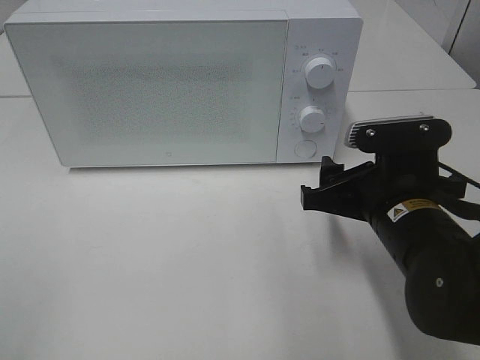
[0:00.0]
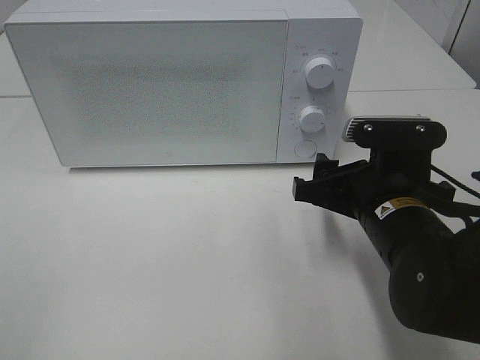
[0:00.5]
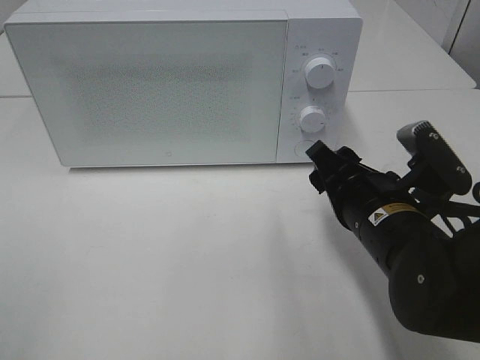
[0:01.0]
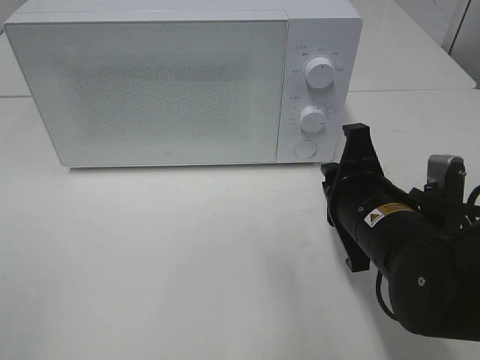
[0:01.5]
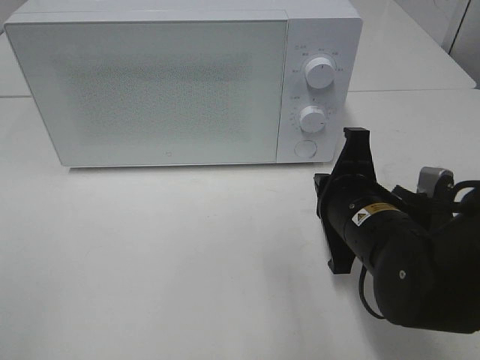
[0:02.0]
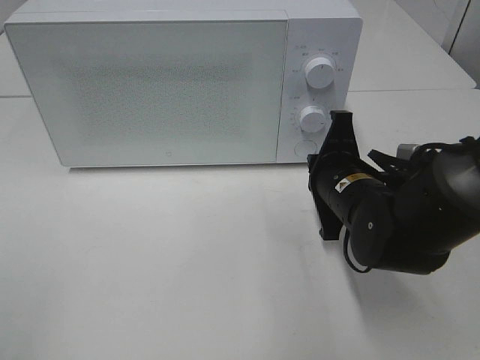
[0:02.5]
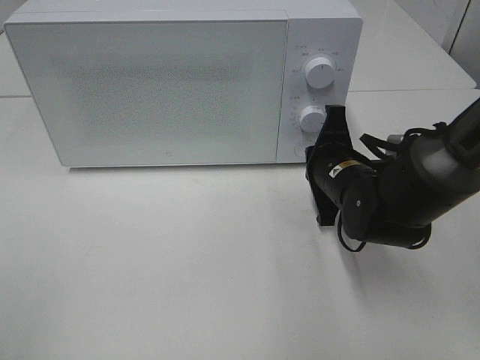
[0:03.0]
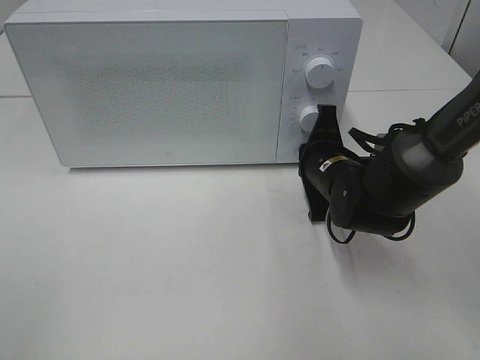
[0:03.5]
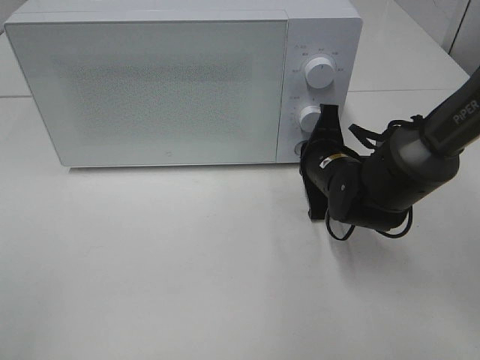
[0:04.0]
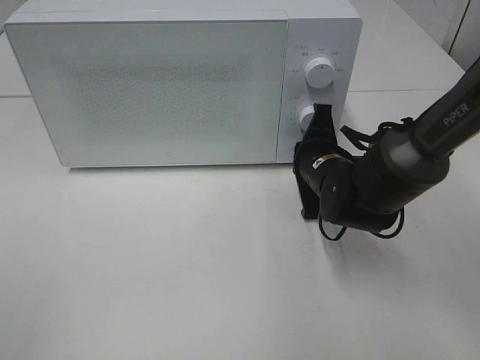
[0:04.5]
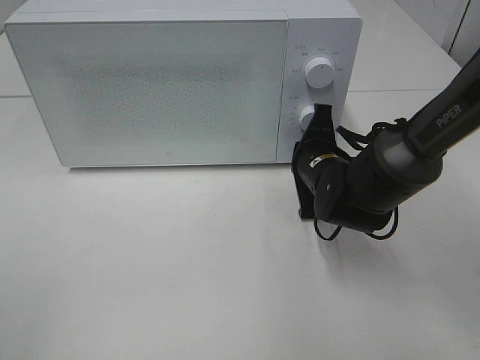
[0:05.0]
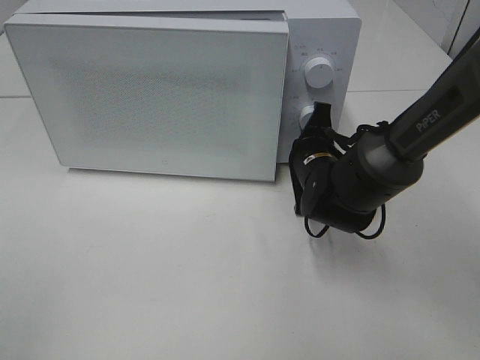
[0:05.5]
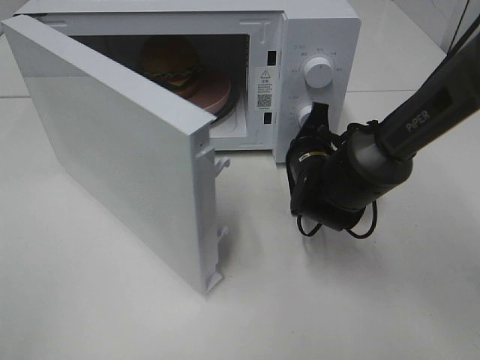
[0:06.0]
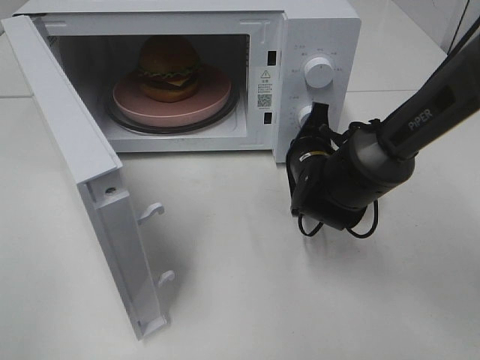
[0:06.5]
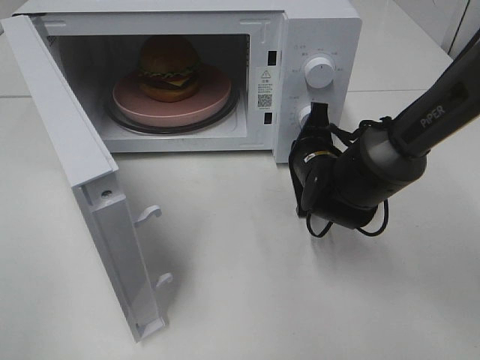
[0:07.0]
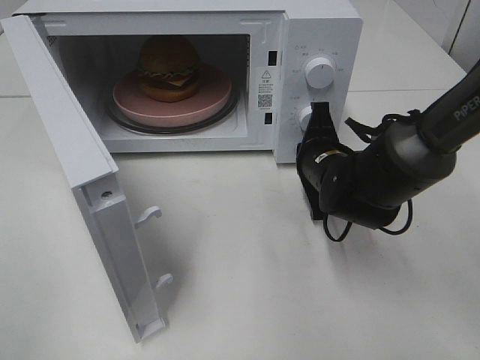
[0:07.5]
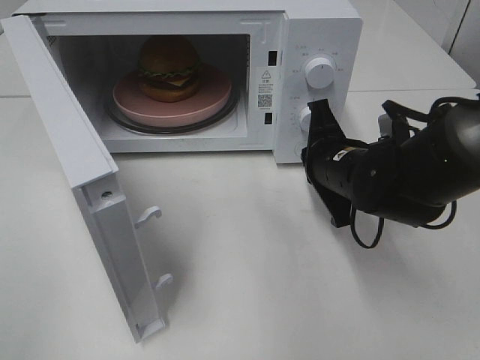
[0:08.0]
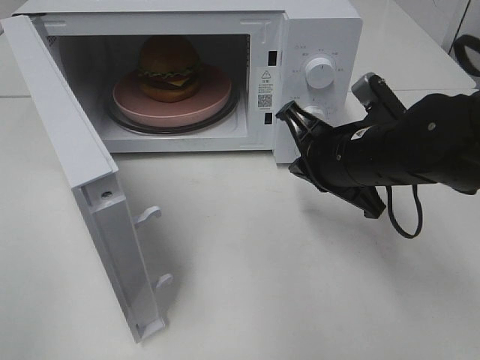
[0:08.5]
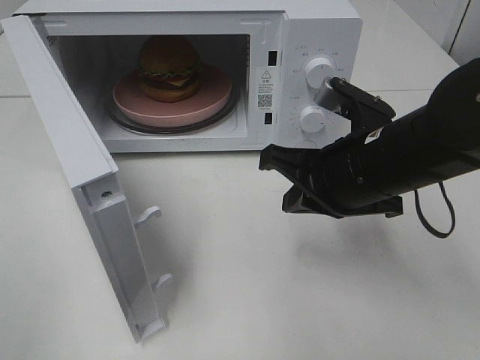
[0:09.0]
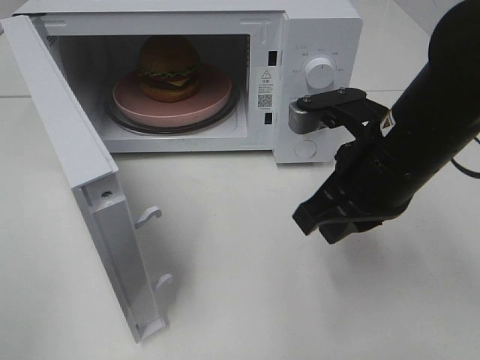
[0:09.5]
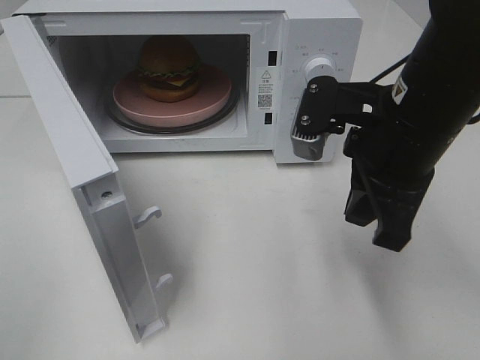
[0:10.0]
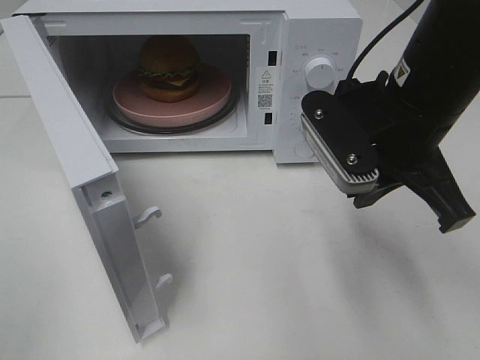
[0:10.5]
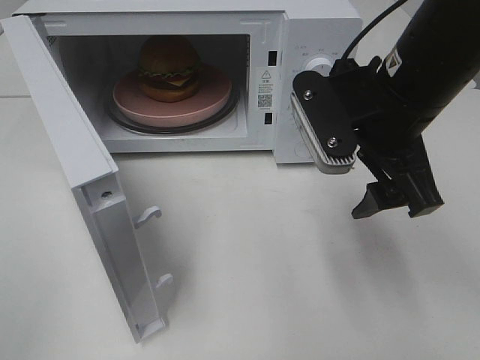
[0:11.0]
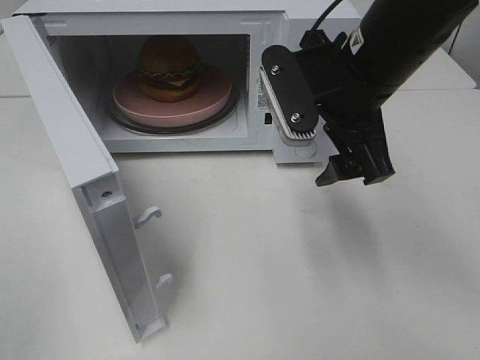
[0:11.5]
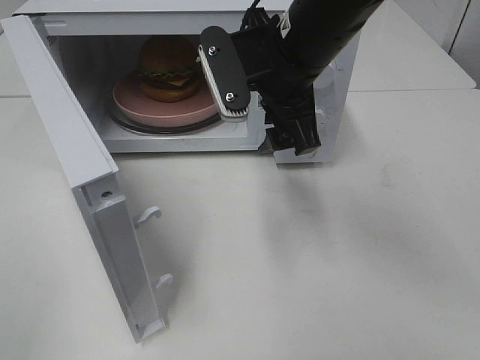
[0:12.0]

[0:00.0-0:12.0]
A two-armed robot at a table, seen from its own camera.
Task of the whole recording: Heat the burger.
Step, 0:00.0 to 0:07.5: Right hand: press the switch.
0:00.0 to 0:02.0: The right gripper closes.
0:02.0 to 0:04.0: The right gripper heads forward, covering roughly 10 cm.
0:06.0 to 0:08.0: The right gripper moves backward, roughly 5 cm.
0:08.0 to 0:10.0: The right gripper goes approximately 15 cm upward and backward.
0:10.0 to 0:12.0: The right gripper heads forward and to the left, covering some 10 cm, and opens.

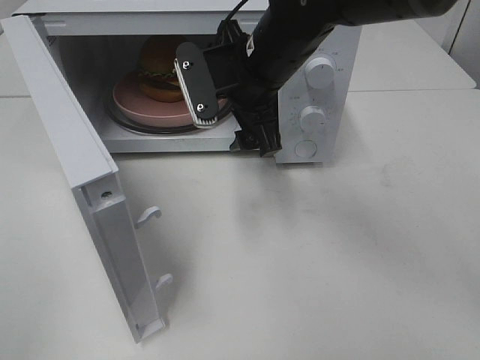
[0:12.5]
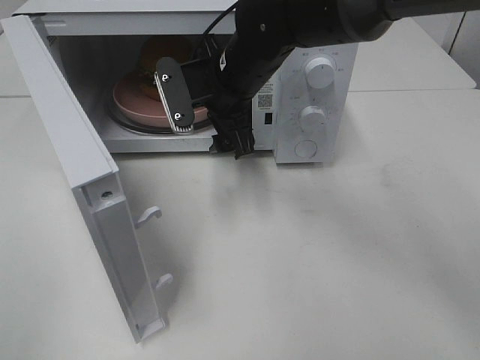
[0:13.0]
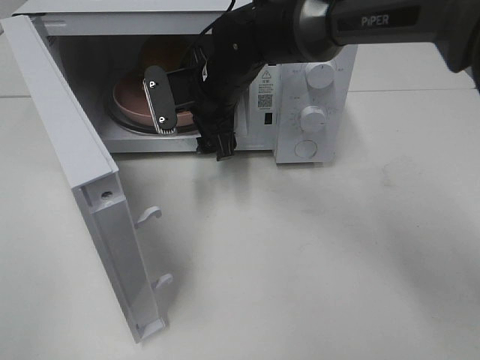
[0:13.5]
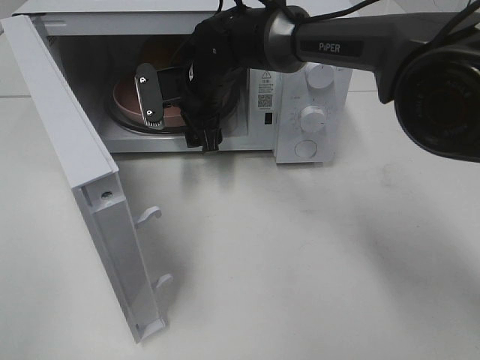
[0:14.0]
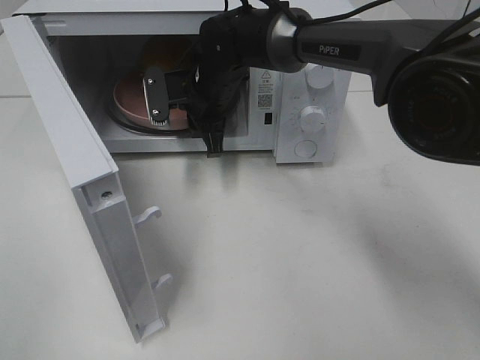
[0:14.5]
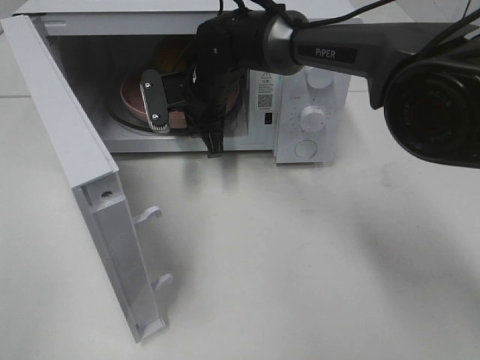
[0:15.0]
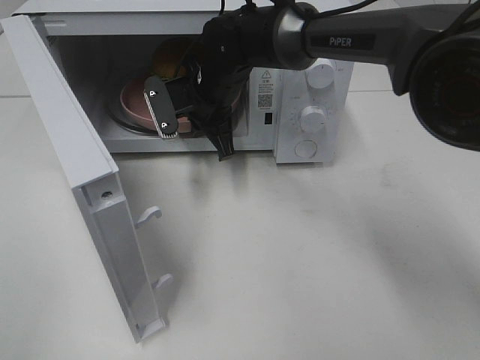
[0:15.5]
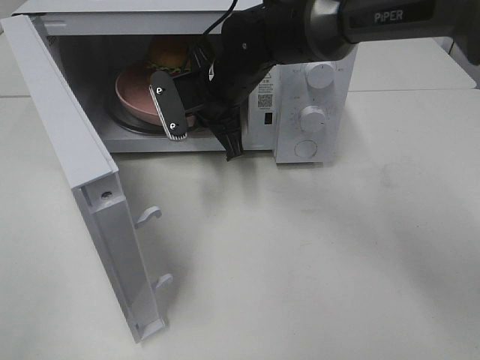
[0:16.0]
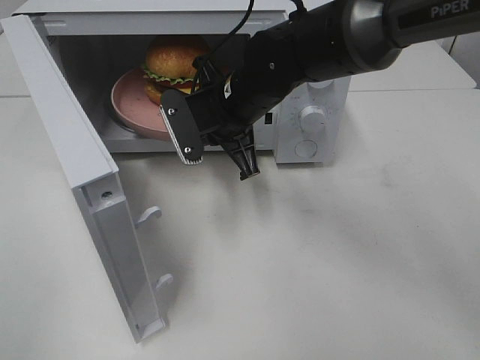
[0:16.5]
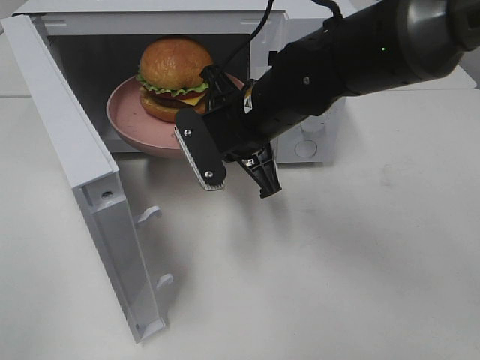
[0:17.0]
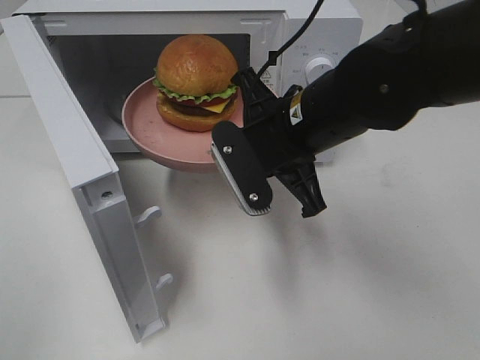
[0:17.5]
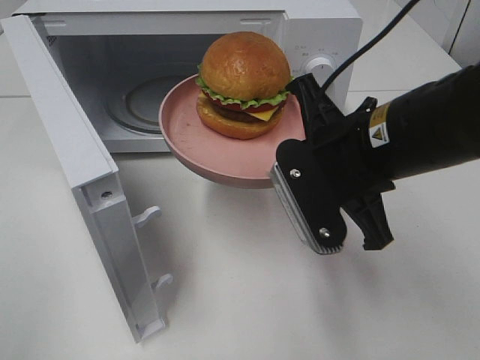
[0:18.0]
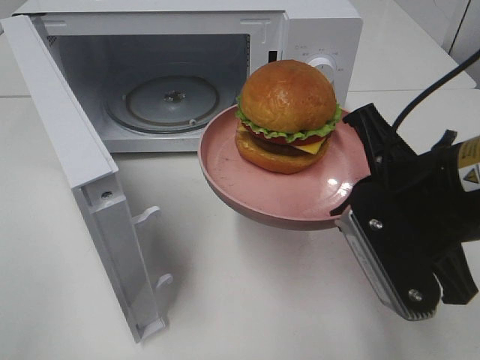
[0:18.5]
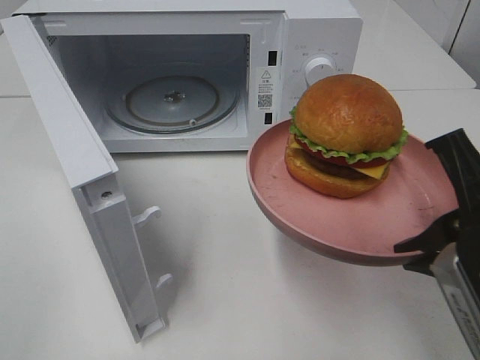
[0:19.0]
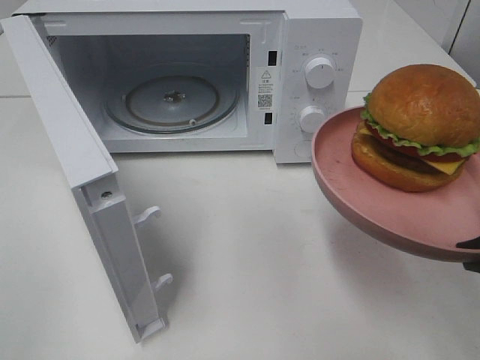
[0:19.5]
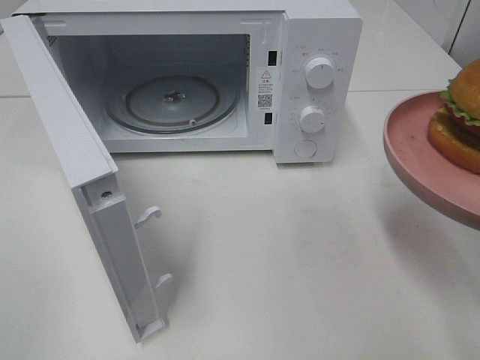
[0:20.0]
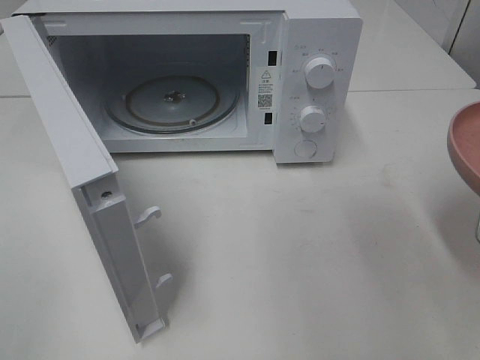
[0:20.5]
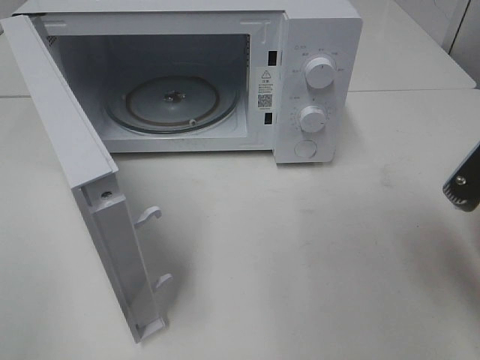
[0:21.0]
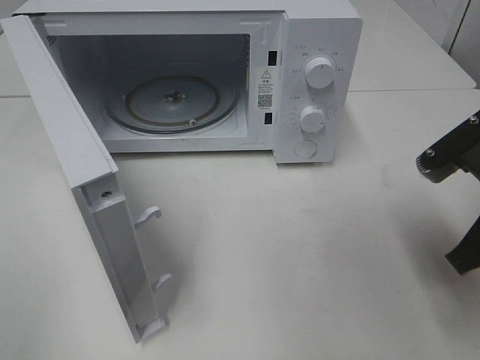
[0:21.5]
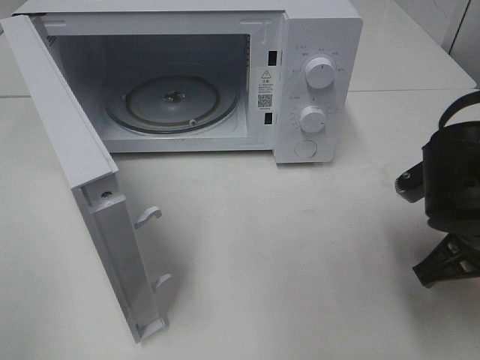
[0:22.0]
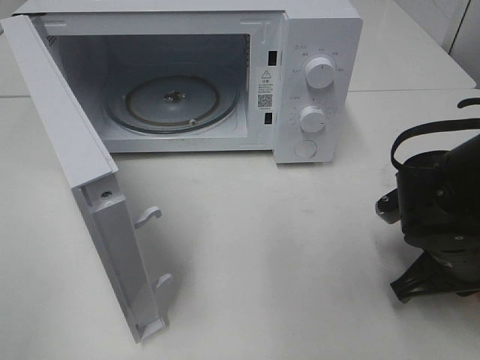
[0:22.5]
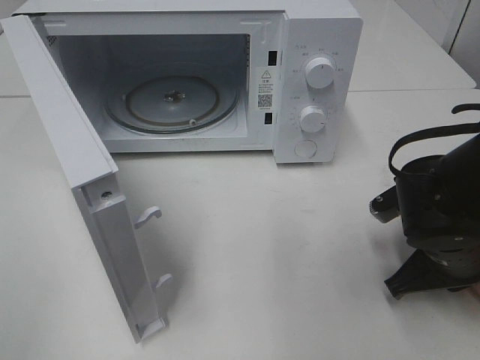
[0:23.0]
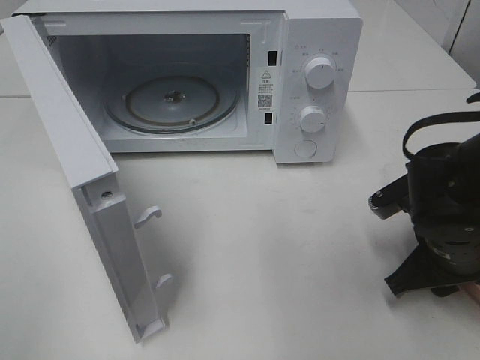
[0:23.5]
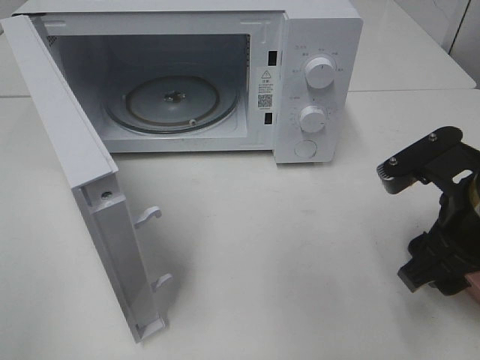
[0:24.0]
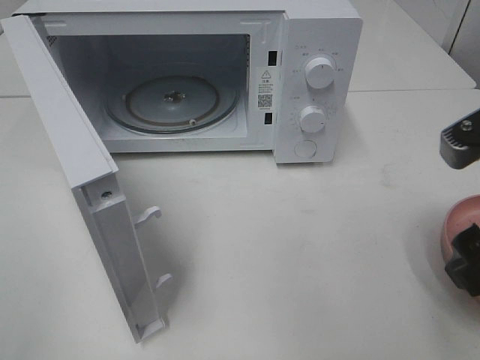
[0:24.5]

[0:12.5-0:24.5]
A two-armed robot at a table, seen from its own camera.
Task of the whole recording: Heat the burger.
Step, 0:12.5 to 0:15.0: Right hand: grab the plate with the hamburger.
Step, 0:15.5 to 0:23.5: Right hand: place the plate on the table.
0:12.5 to 0:14.5: The right gripper moves forward, downward and to the left, some 15 cm, and closes.
0:14.5 to 0:16.5: The right gripper travels backward by about 10 cm.
0:16.5 to 0:18.5: The right gripper moves backward and to the right, roughly 25 cm.
0:18.5 to 0:20.5: The right gripper shifts approximately 10 cm to the right.
0:20.5 to 0:22.5: The right gripper goes about 15 cm downward and forward.
0:22.5 to 0:24.5: The right gripper travels upward and backward by about 15 cm, and opens its fingers.

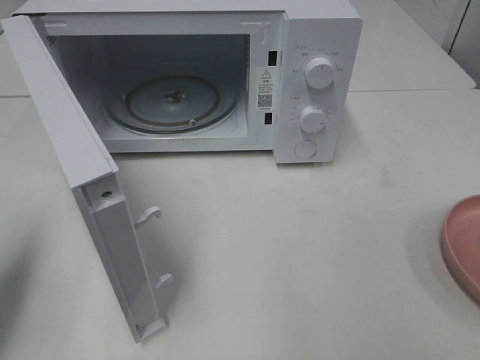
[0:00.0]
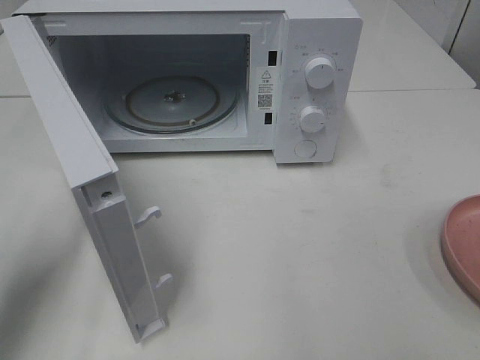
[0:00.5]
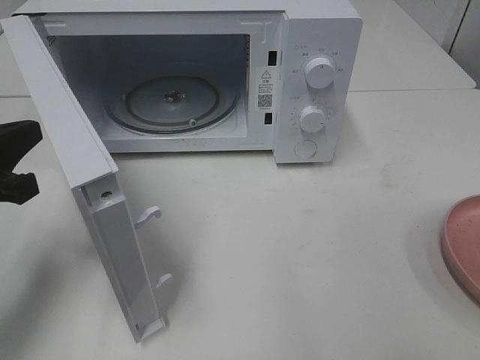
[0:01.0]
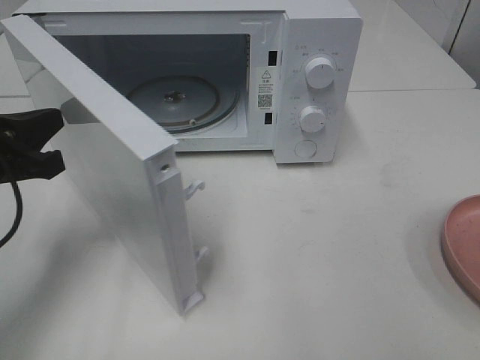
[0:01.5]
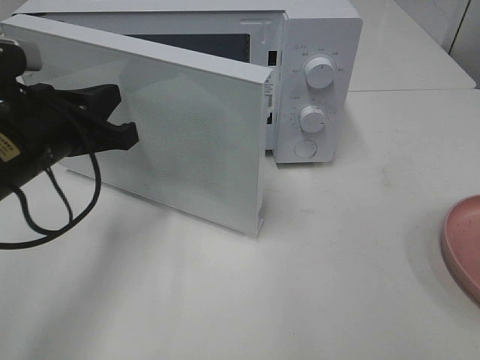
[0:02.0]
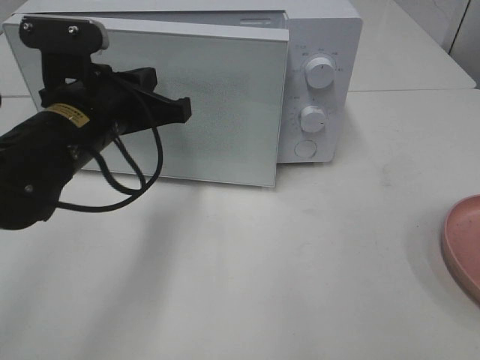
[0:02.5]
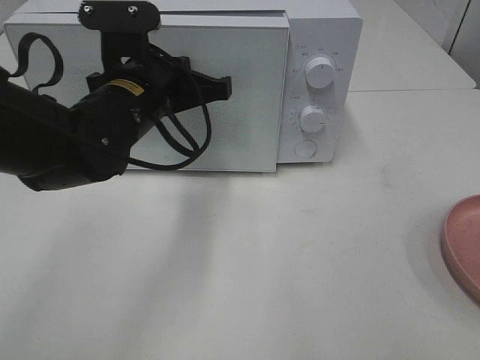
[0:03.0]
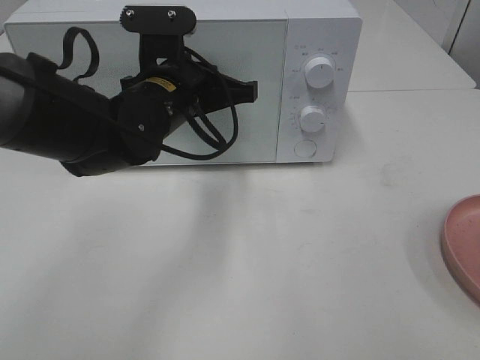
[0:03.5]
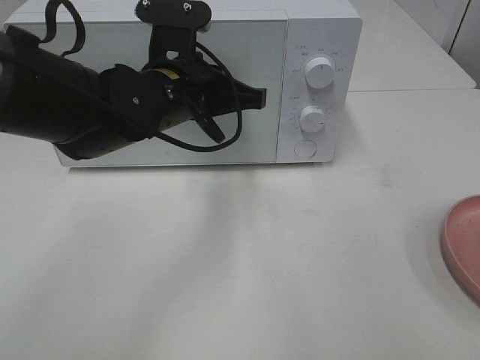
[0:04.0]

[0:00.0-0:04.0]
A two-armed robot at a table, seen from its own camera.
Task of the whole recording: Heat the burger.
0:00.0 to 0:02.0: The left gripper travels to the right and forward by roughly 15 cm.
0:02.0 to 0:04.0: The left gripper moves to the right and forward, some 15 cm.
